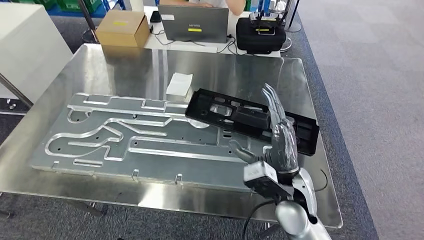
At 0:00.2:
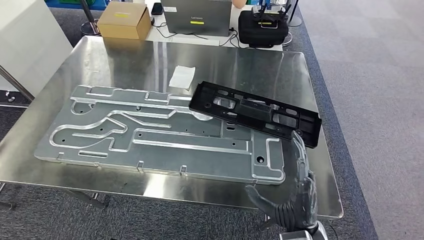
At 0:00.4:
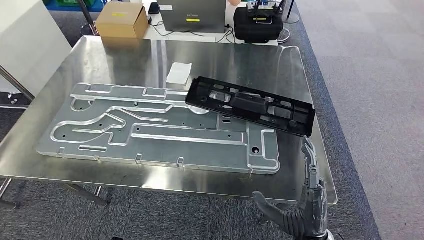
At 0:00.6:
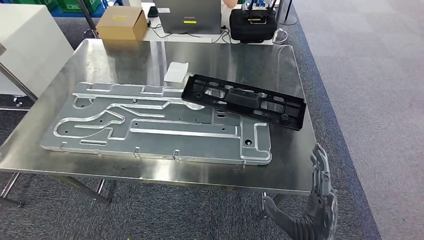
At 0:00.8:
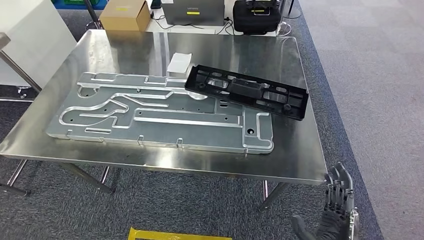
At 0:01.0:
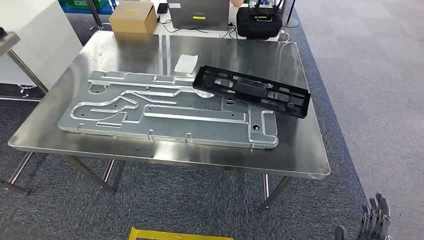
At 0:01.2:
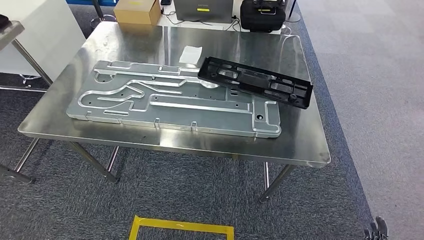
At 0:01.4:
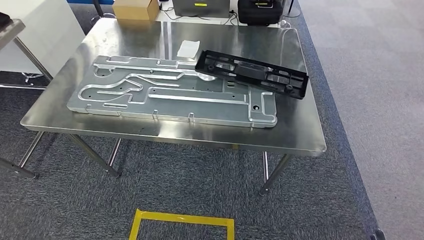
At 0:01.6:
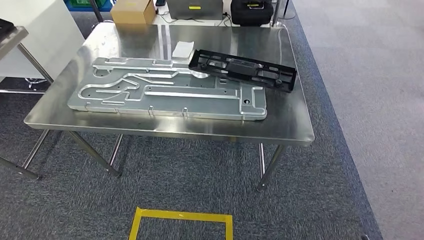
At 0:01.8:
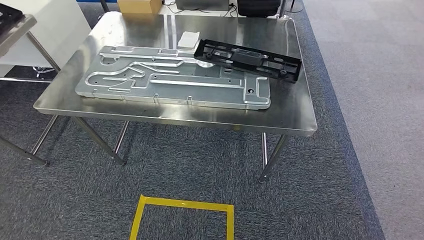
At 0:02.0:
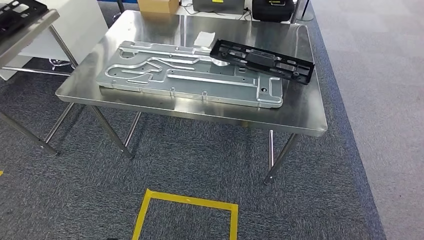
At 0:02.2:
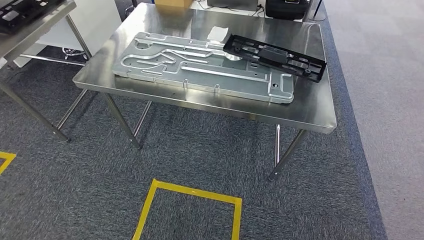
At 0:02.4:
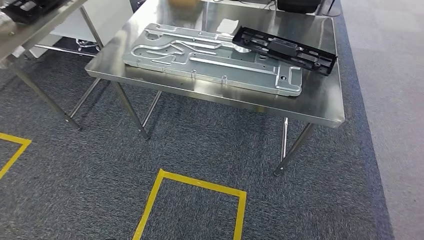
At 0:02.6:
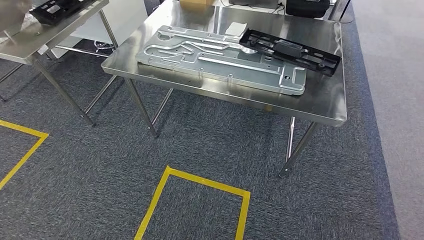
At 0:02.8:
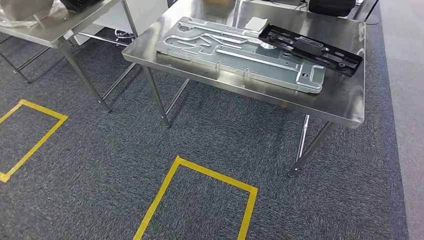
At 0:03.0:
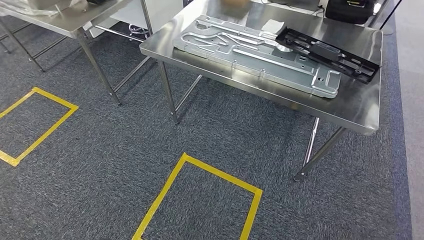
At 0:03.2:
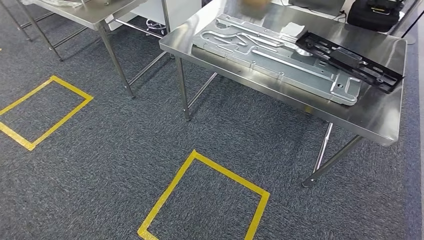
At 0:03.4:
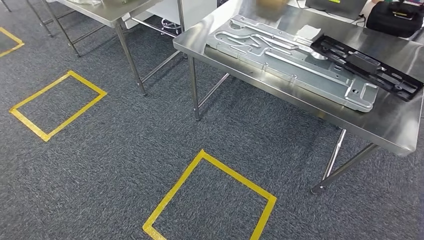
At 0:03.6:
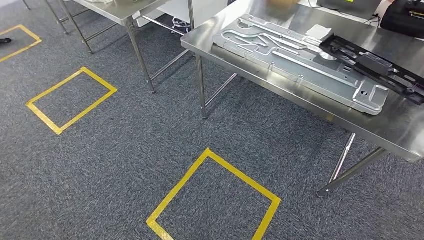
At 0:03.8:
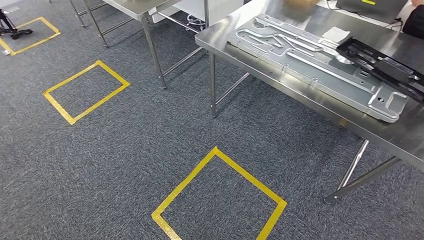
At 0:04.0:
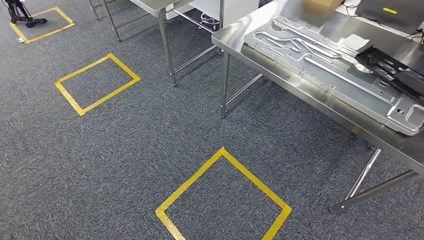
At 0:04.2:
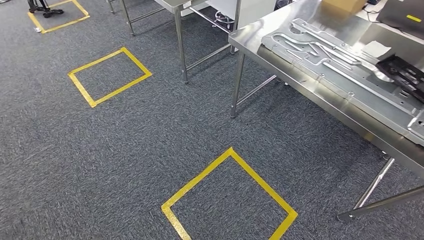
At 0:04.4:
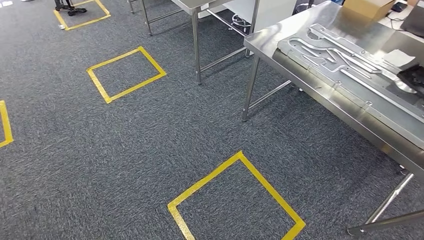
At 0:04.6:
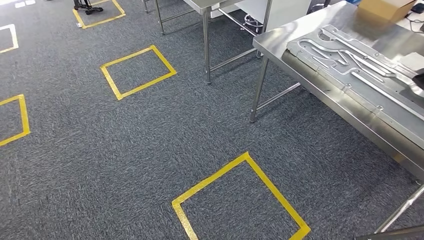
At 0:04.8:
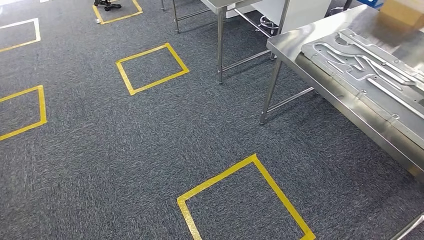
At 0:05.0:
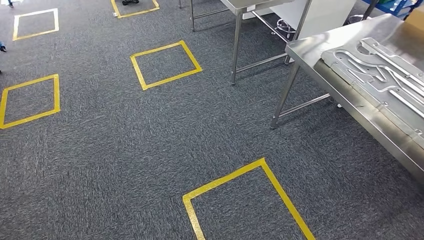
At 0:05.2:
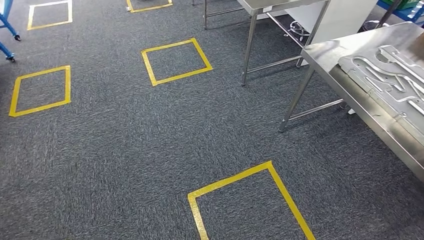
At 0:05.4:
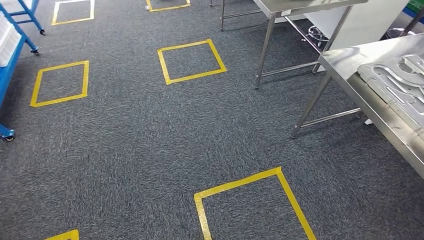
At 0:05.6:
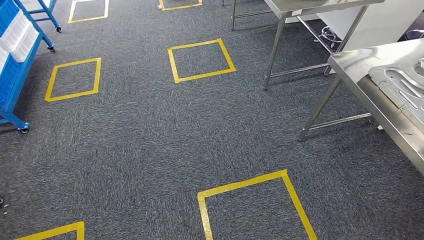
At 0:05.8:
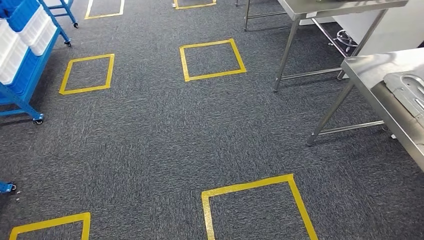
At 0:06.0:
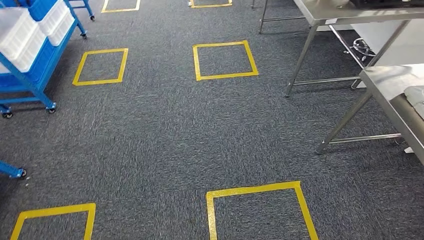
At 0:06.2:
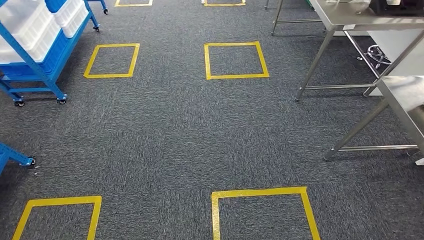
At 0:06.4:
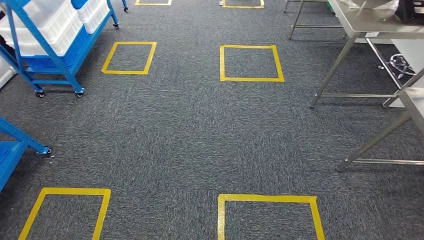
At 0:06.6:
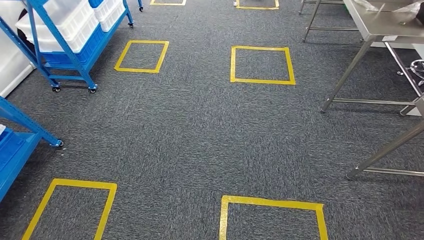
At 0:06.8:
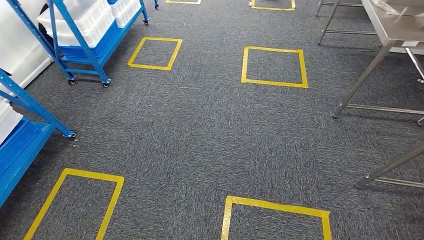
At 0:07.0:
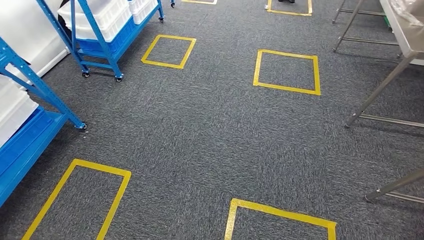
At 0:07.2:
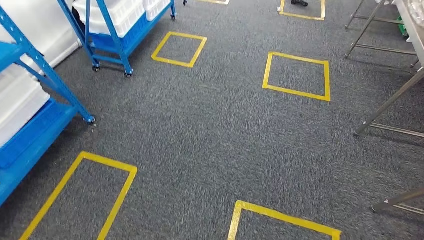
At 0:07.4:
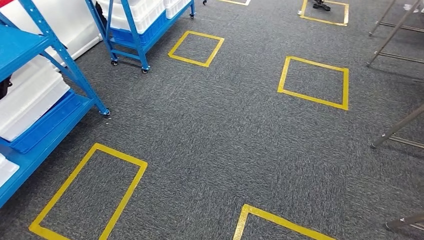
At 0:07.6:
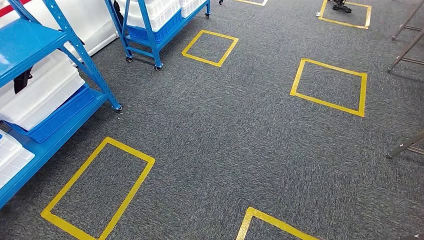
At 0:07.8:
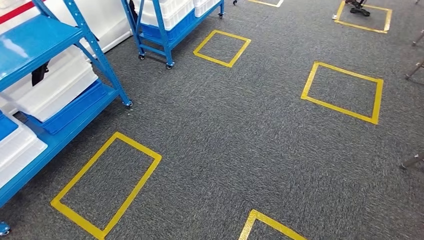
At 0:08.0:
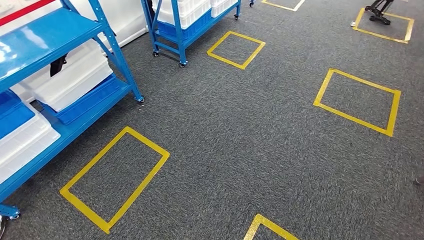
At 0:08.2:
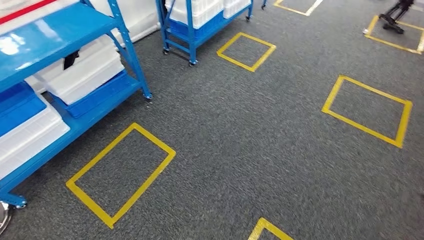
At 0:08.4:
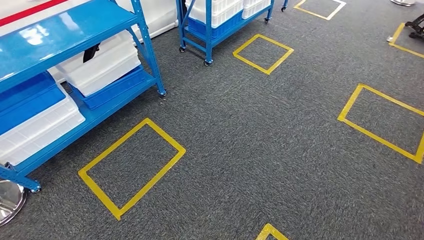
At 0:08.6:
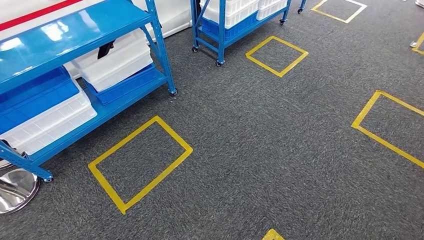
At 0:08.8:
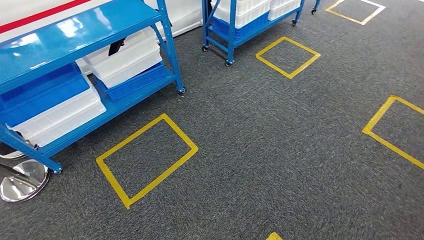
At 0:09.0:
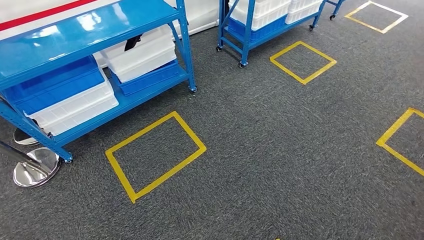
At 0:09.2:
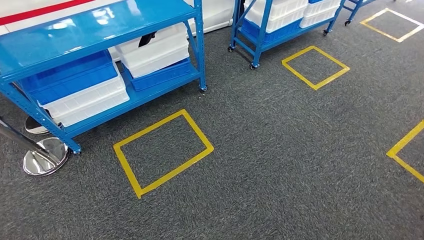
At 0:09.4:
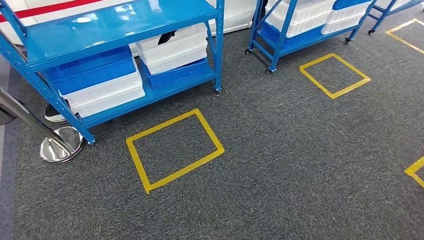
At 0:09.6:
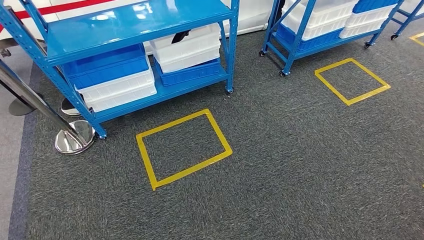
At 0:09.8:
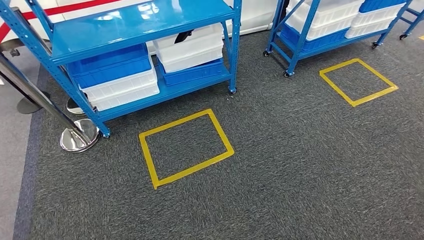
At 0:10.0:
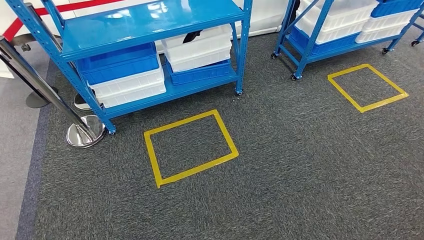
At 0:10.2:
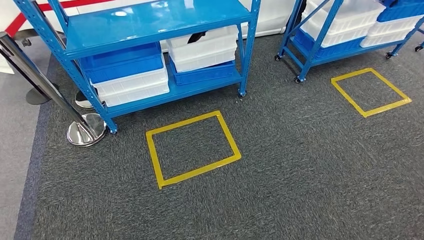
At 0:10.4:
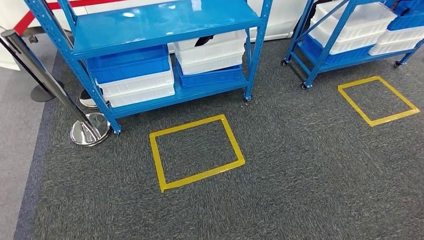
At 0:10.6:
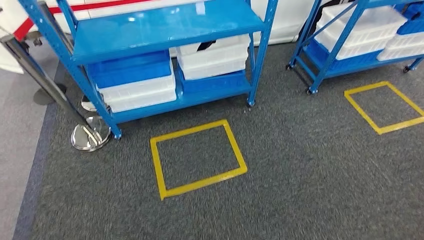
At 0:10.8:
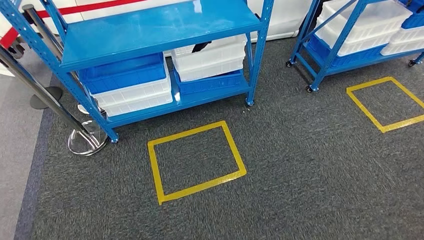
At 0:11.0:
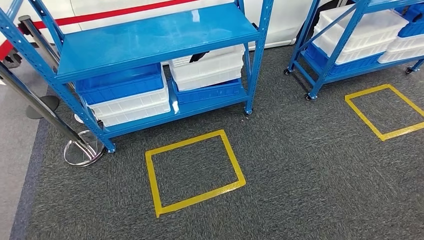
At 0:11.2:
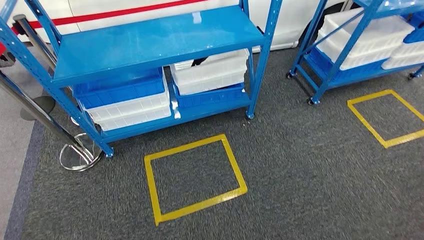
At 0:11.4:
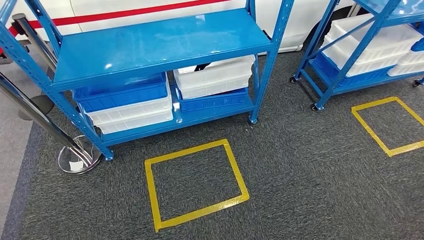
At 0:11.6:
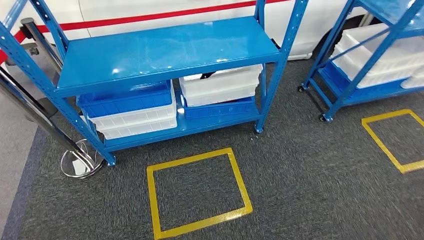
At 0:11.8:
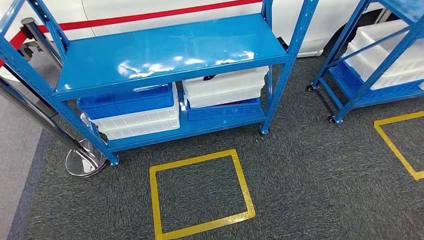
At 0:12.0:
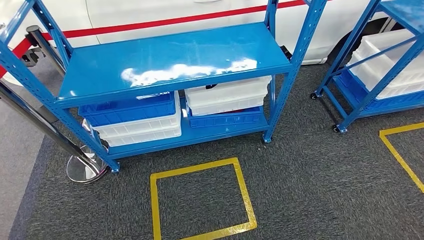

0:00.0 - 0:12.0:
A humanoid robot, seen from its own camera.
Step, 0:00.0 - 0:03.6: Insert the large material into the corresponding slot on the workbench.

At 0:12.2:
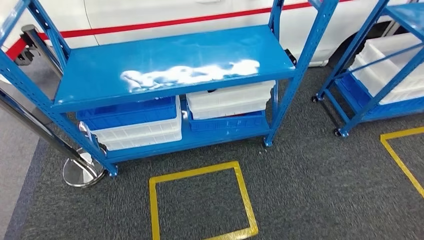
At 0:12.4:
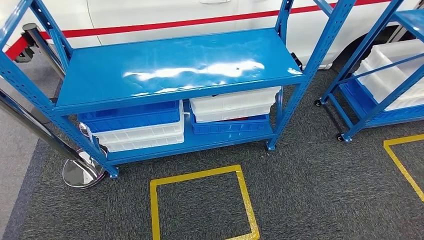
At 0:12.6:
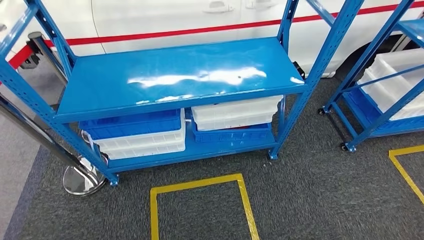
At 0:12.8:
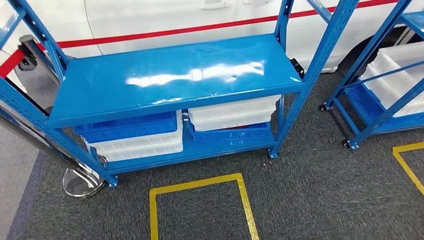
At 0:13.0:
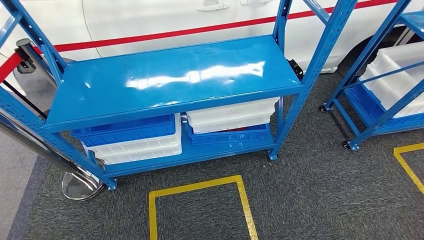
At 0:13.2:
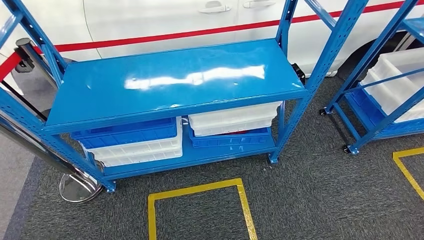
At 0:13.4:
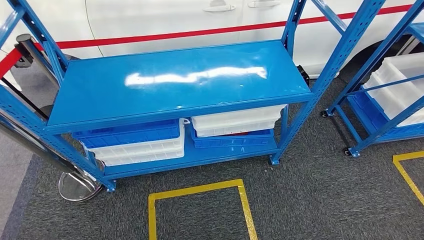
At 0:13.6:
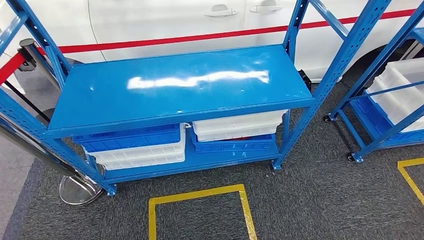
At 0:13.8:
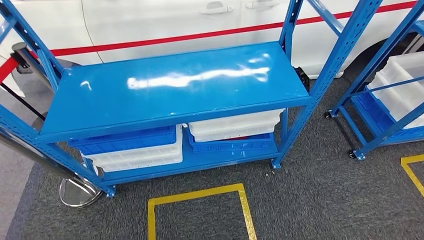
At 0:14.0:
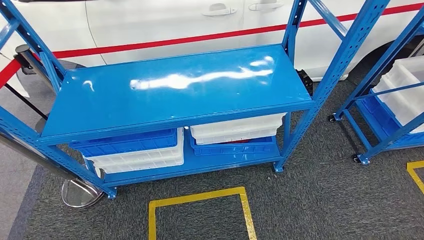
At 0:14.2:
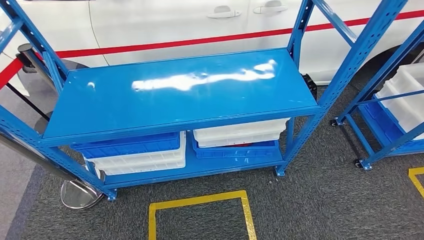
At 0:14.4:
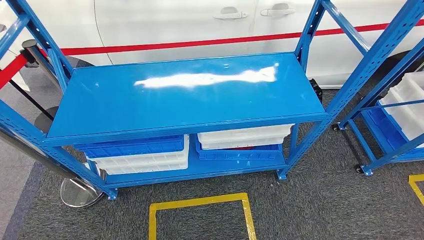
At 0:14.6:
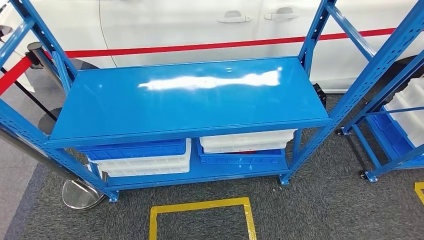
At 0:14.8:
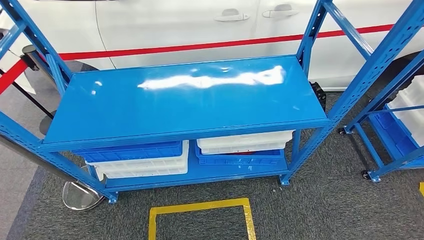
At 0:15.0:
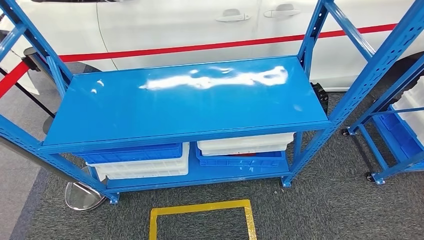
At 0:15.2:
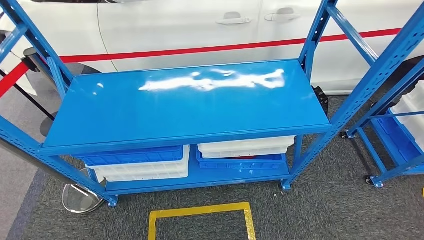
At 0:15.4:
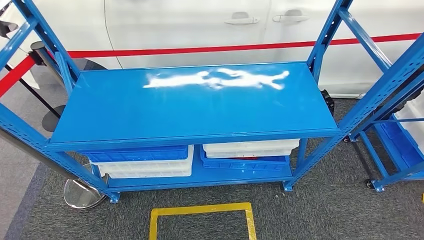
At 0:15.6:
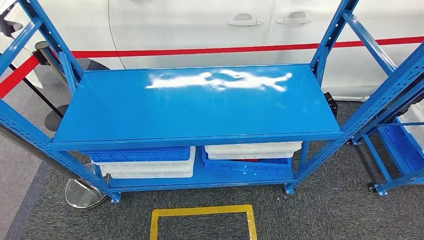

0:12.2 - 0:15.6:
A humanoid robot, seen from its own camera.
Step, 0:12.2 - 0:15.6: Move to the initial position of the shelf.

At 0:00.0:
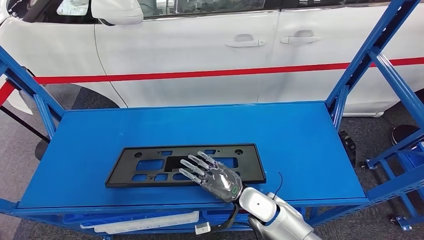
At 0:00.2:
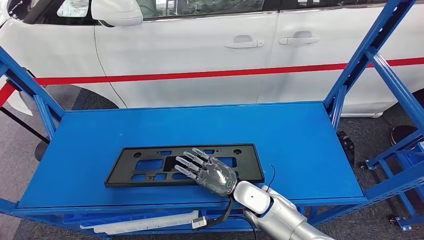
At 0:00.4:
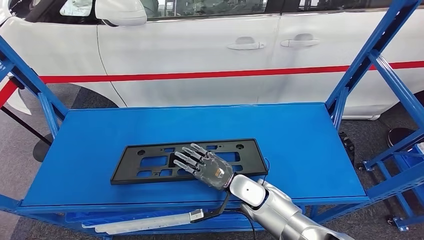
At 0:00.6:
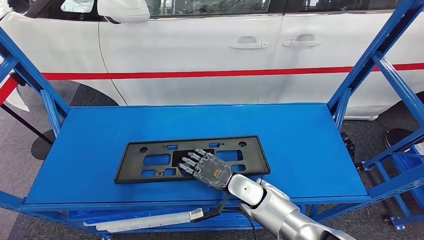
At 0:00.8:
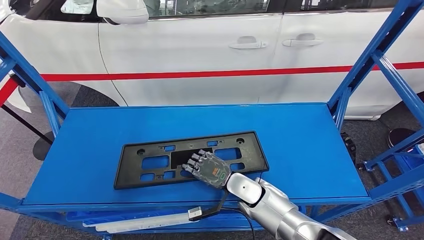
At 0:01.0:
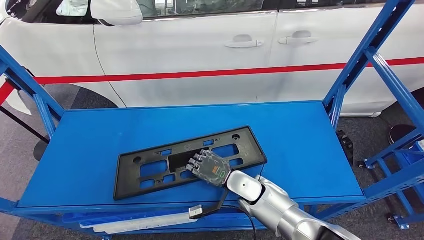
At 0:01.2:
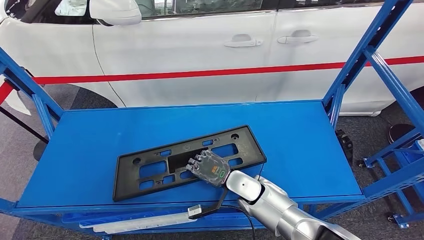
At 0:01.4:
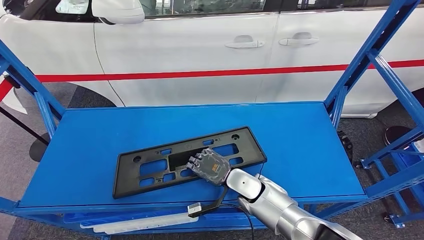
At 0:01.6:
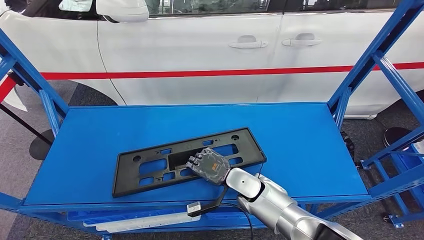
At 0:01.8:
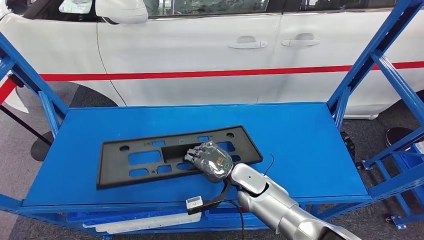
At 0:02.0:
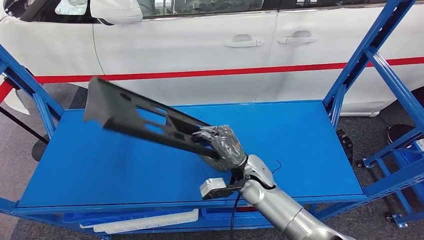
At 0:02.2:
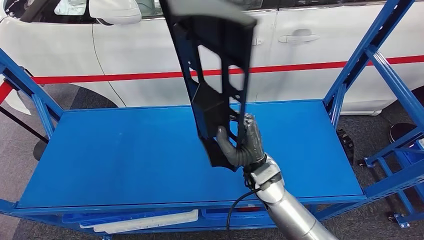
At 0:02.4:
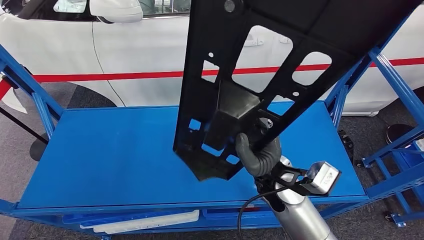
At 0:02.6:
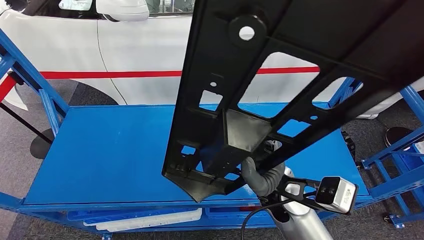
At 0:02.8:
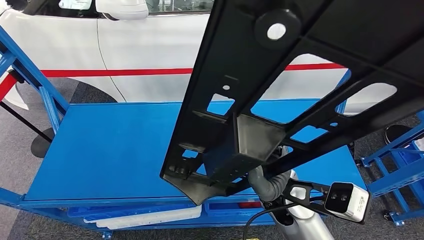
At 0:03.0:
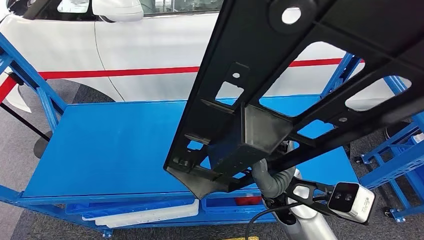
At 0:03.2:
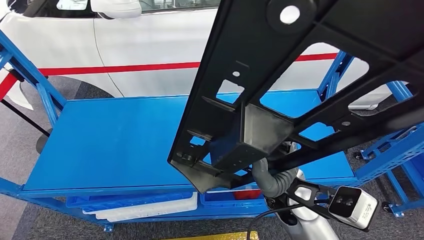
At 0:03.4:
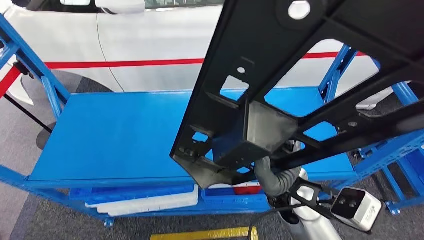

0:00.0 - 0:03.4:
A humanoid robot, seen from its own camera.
Step, 0:00.0 - 0:03.0: Pick up the large material from the shelf.
